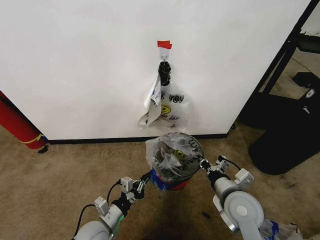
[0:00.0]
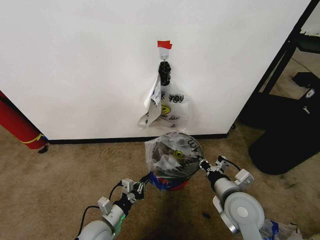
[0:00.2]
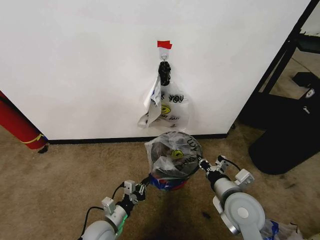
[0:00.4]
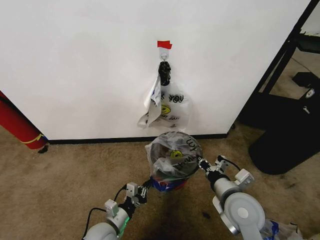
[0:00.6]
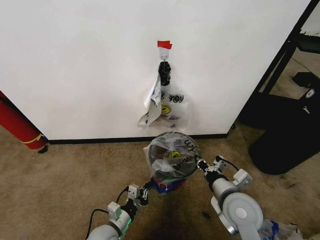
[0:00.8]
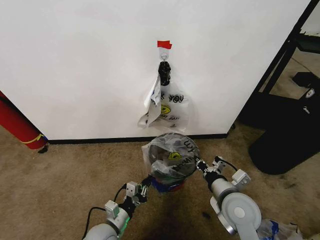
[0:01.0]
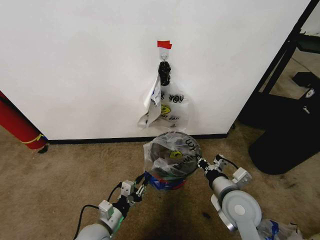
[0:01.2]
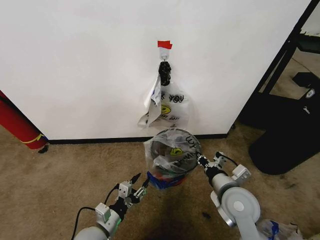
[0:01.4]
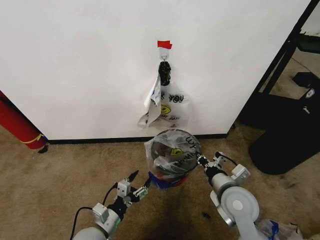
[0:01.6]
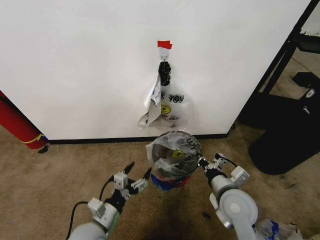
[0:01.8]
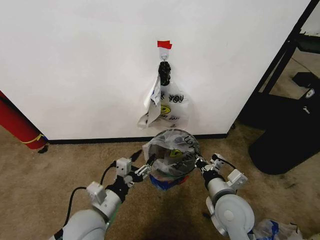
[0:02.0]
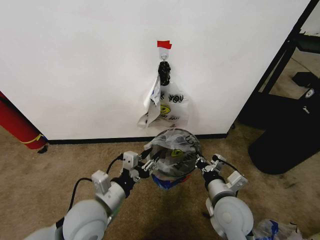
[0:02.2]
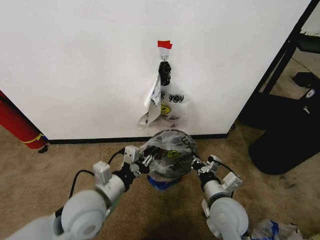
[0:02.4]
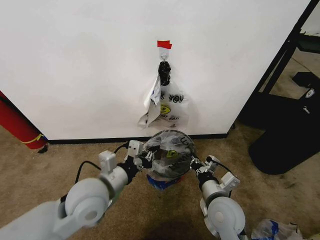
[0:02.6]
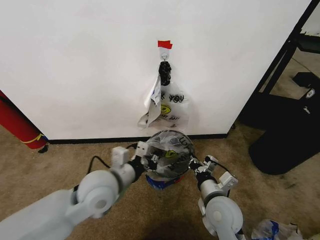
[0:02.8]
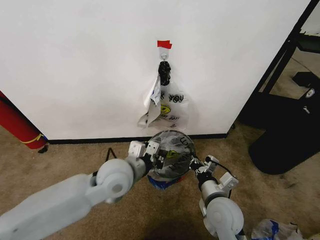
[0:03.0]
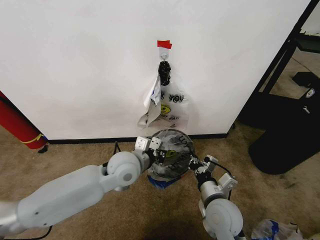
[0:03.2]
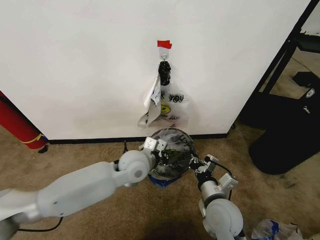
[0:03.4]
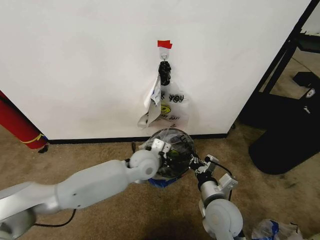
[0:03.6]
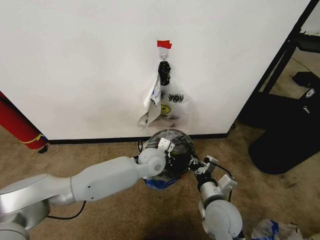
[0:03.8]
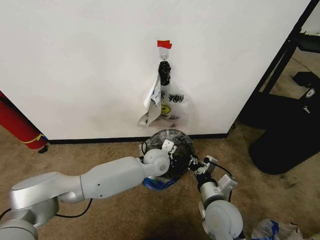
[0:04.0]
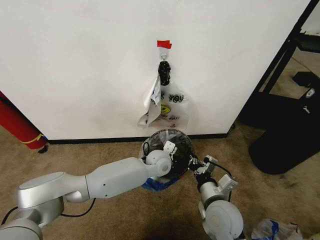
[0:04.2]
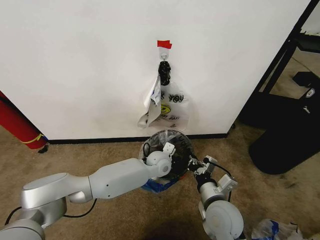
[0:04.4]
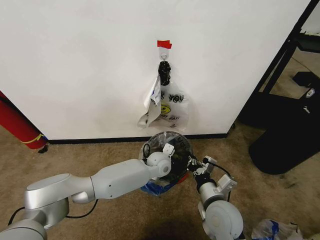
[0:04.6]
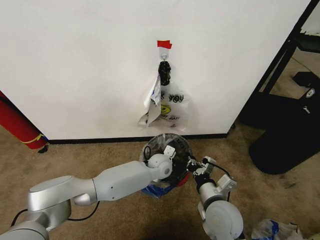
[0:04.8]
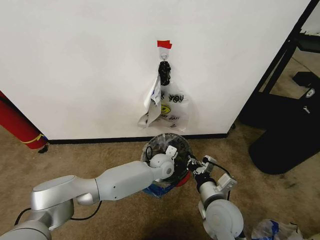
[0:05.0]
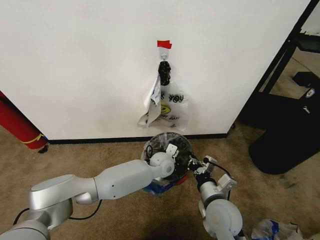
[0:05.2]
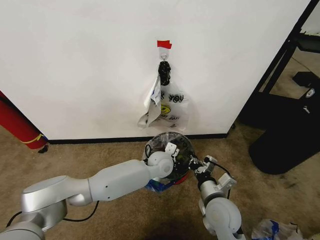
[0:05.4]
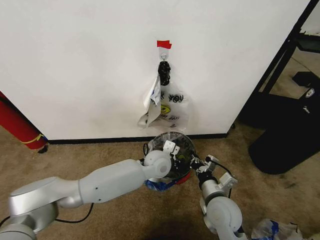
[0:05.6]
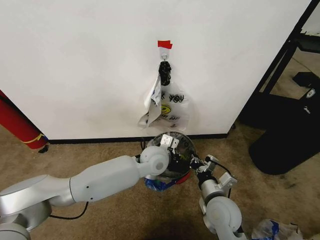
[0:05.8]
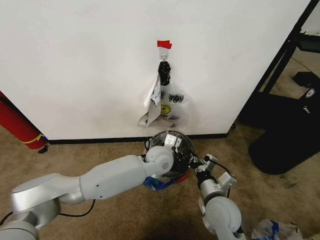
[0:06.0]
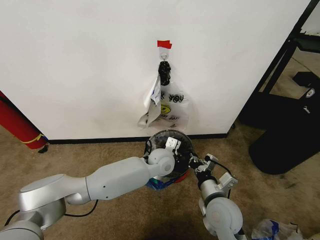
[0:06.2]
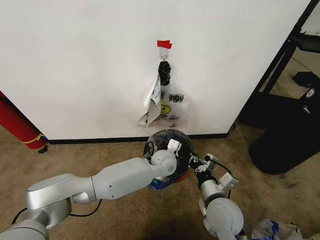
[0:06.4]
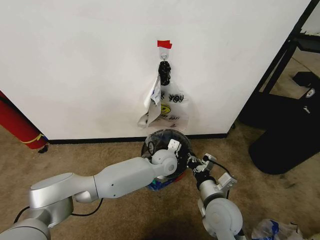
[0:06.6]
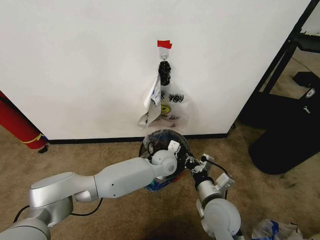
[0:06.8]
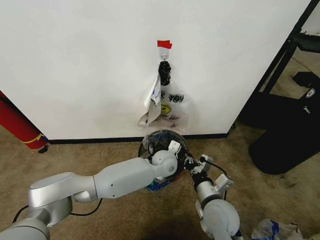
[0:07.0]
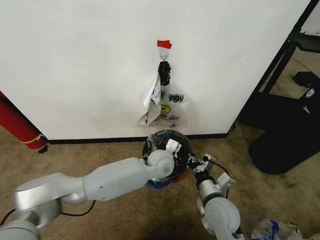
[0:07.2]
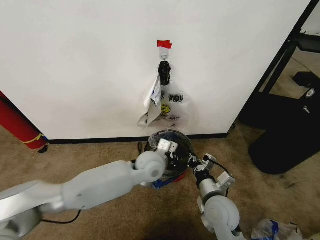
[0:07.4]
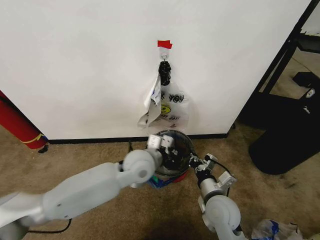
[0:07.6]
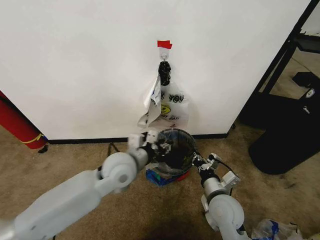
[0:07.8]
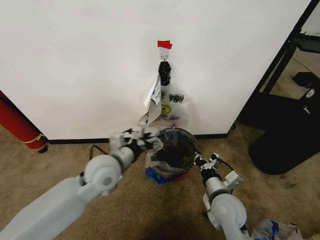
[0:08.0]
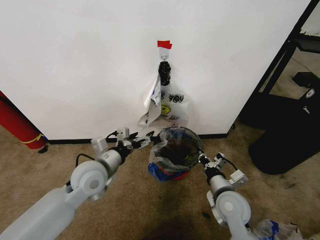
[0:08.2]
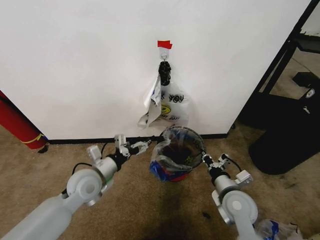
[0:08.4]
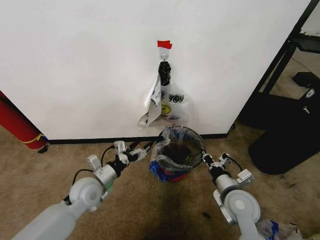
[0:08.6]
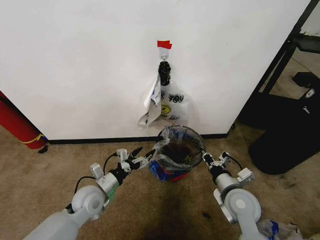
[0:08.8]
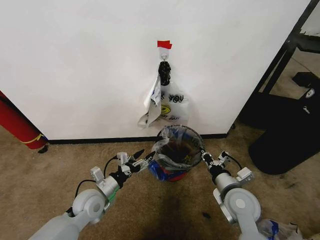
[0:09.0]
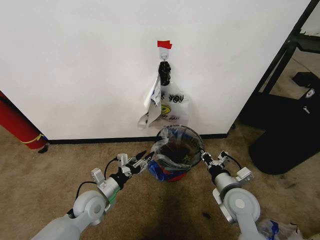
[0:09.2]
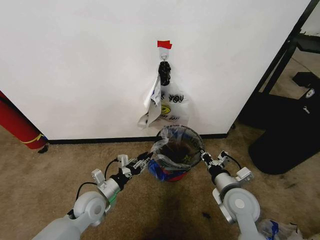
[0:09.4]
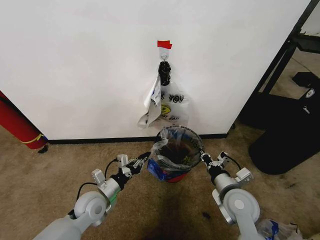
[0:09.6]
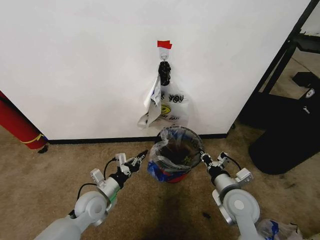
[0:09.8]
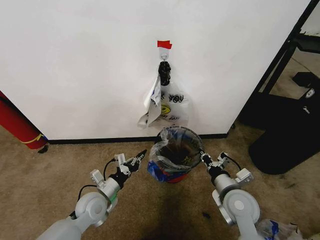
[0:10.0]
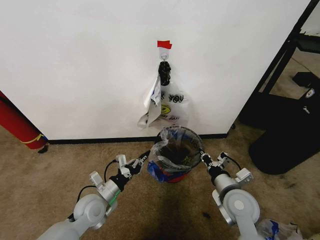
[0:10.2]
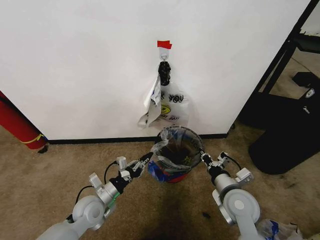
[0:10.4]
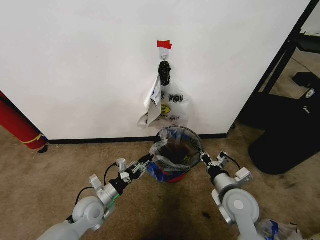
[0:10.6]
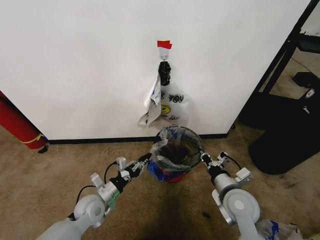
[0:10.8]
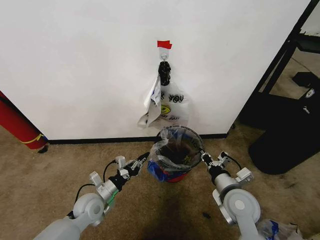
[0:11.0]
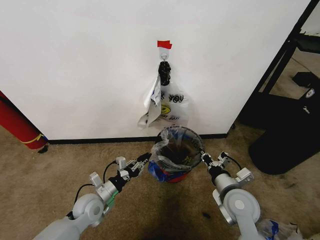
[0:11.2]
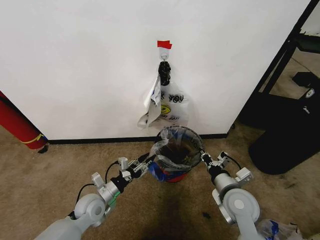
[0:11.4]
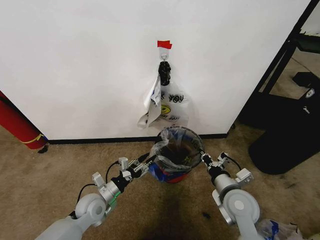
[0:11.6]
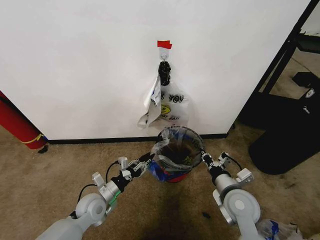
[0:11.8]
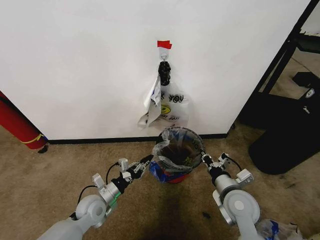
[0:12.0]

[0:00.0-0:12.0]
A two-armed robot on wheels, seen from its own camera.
Task of the whole recording: Pick up the garbage bag from the wall and place it over the trash bin.
0:00.0 to 0:01.6: The left gripper opens up.
0:01.6 to 0:03.0: The left gripper travels upward, forward and to the right by some 25 cm, and closes; the right gripper shifts by about 5 cm.
0:03.0 to 0:04.4: The left gripper travels downward, forward and to the right by some 20 cm.
0:04.4 to 0:06.0: The left gripper goes approximately 5 cm upward.
0:06.0 to 0:07.6: The left gripper shifts approximately 10 cm to the left and backward.
0:07.6 to 0:09.0: The left gripper goes about 20 cm to the left and downward, and opens up, while the right gripper shifts about 5 cm to the right.
0:09.0 to 0:10.4: The left gripper closes up.
0:10.4 to 0:12.0: The left gripper opens and closes again.

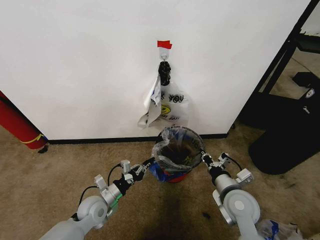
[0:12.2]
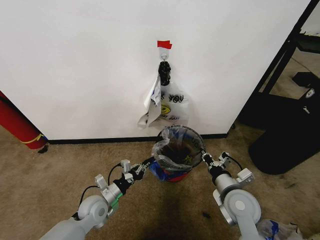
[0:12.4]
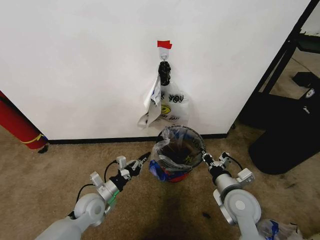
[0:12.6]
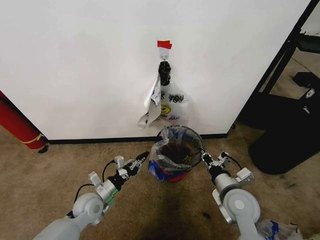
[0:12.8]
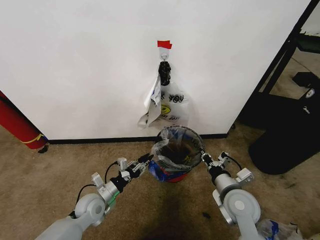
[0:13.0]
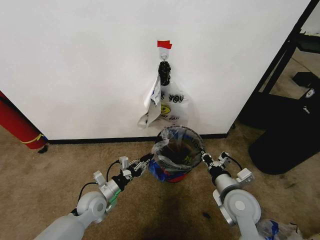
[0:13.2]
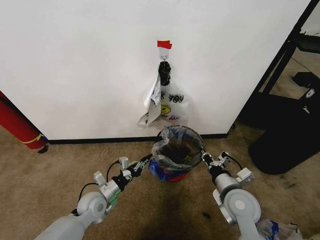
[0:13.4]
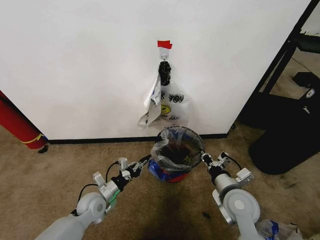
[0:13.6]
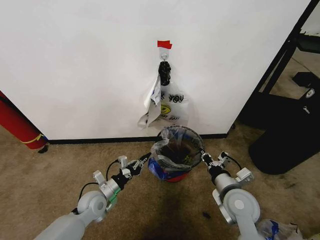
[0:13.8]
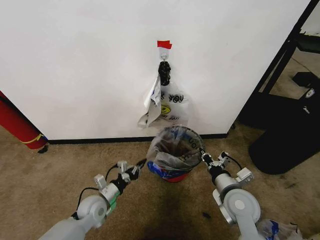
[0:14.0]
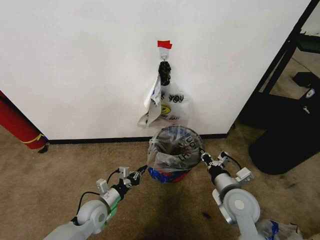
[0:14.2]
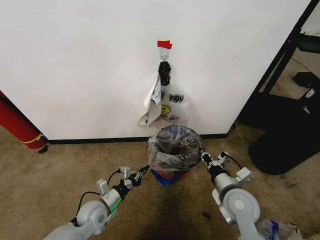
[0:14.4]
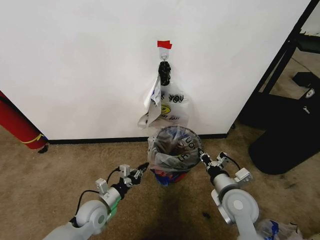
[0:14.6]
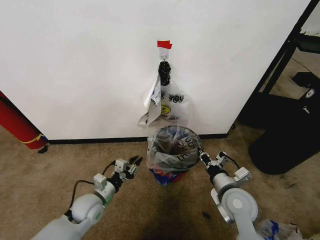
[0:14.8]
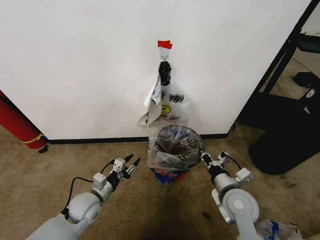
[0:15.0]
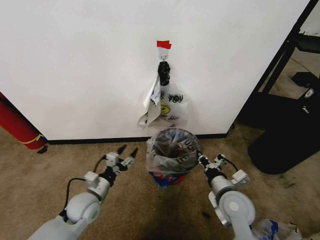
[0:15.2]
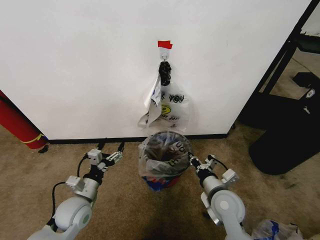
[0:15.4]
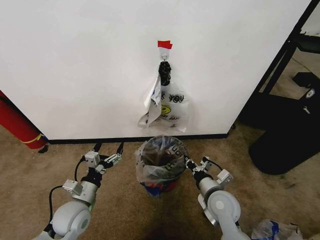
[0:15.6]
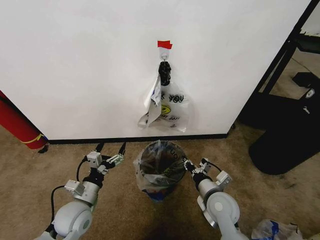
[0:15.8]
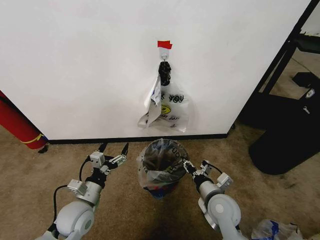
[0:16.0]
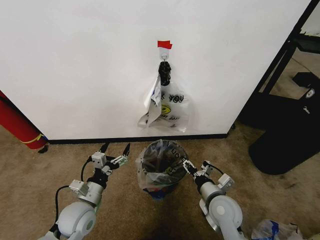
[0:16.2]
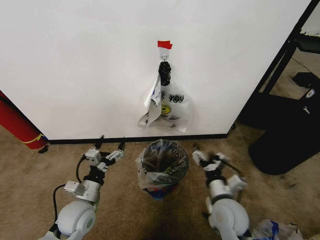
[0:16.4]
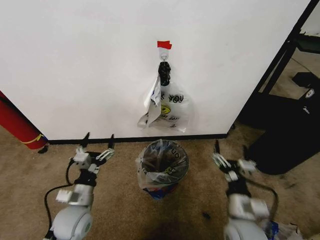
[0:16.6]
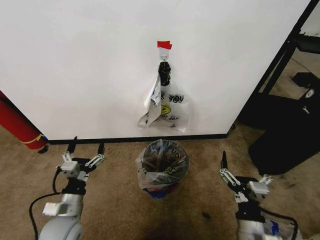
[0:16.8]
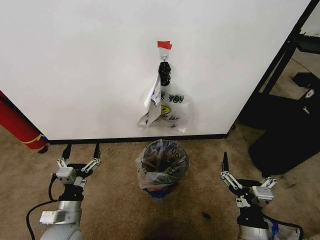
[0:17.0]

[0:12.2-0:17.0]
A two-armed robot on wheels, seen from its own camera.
Task of the whole recording: Pick up the garbage bag from the wall and place it over the trash bin.
0:12.2 to 0:13.8: The left gripper opens, then closes again.
0:13.8 to 0:15.4: The left gripper shifts approximately 5 cm upward, and opens its fingers.
0:15.4 to 0:17.0: The right gripper goes approximately 15 cm backward, and opens its fingers. Meanwhile the left gripper travels backward by approximately 10 cm.

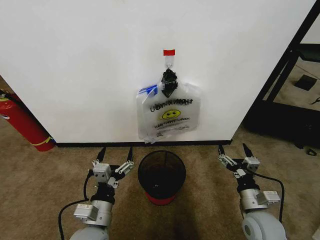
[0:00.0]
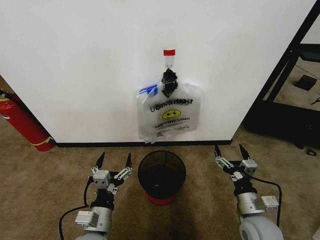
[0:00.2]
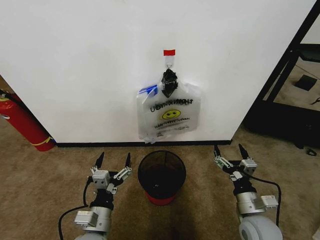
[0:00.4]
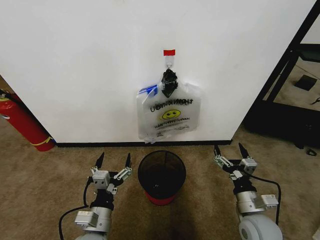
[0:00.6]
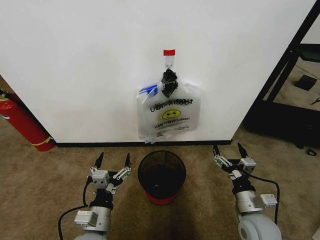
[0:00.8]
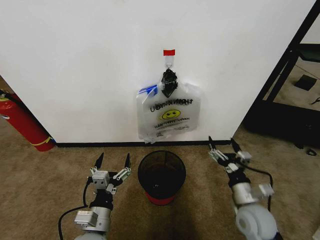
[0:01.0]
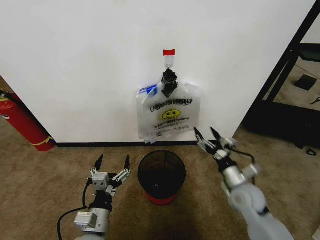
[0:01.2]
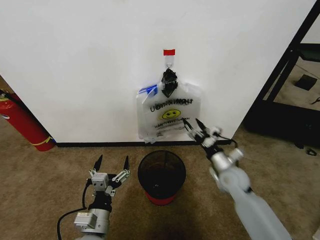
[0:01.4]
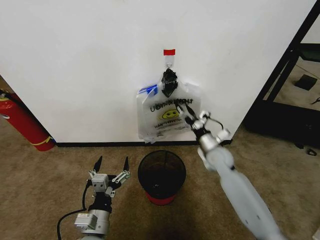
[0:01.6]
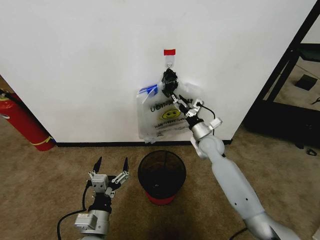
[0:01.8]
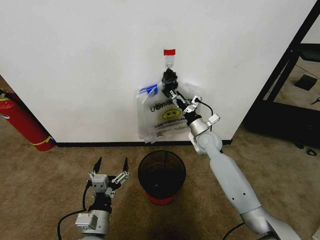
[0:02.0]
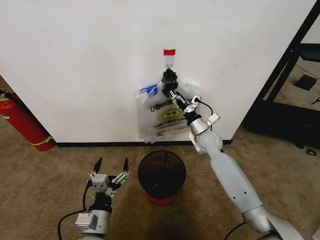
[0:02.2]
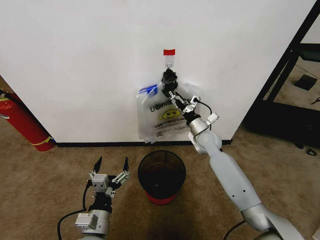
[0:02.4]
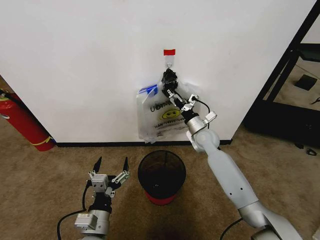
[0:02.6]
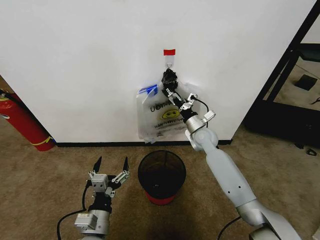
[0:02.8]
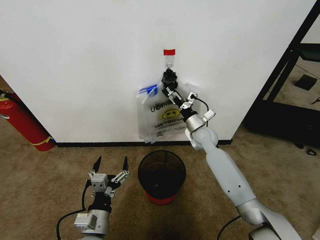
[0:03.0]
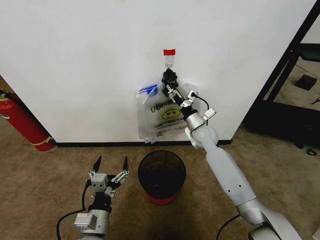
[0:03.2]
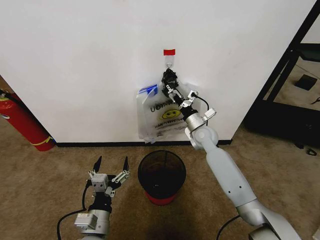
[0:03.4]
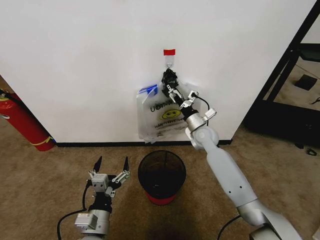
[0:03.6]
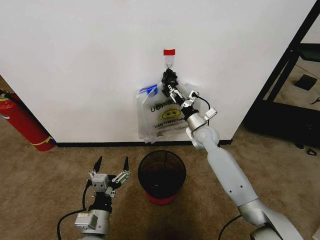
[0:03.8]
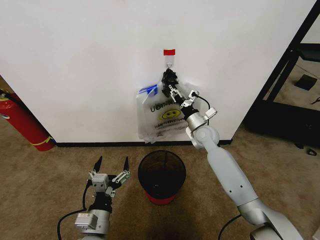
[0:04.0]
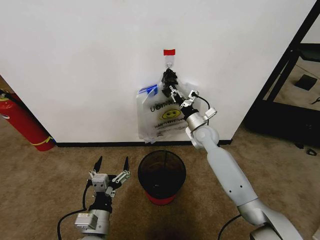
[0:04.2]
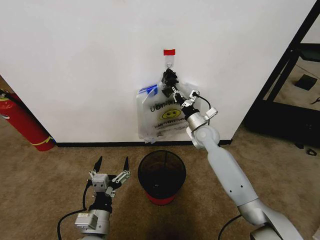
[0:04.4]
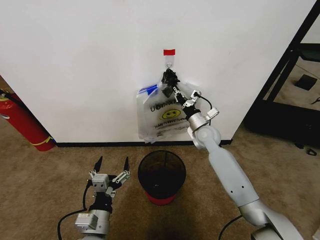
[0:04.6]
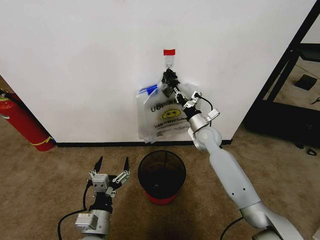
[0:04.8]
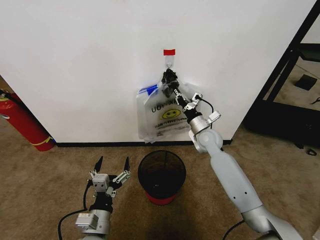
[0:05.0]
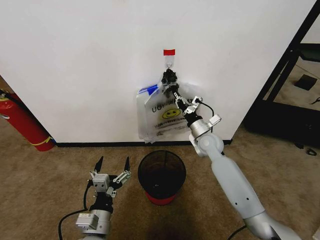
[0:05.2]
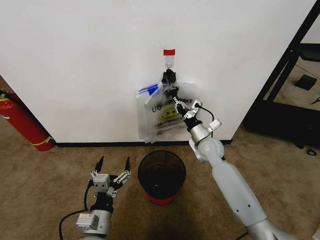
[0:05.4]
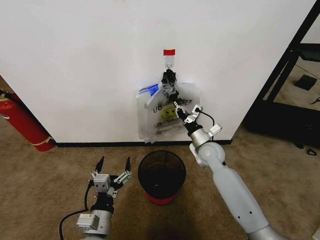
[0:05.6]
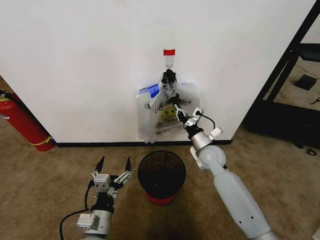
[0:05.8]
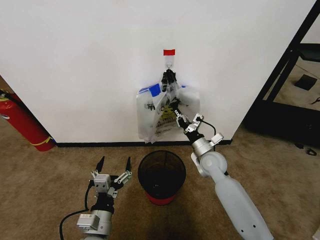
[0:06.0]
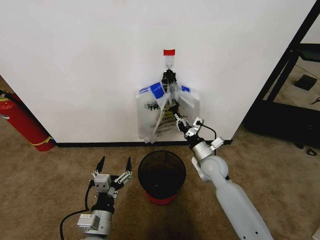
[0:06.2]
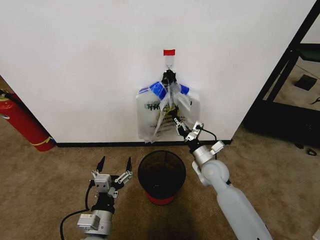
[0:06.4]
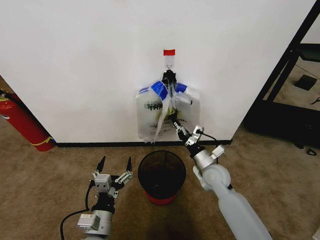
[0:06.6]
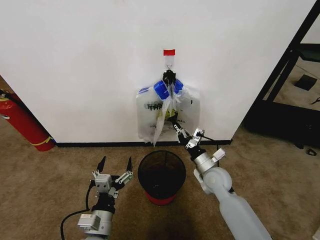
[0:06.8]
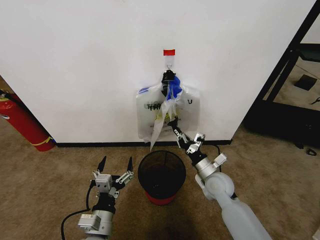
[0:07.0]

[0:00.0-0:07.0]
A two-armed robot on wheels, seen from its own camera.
Task of the whole recording: Pick up the garbage bag from the wall and place it over the trash bin.
0:01.4 to 0:02.8: The right gripper goes roughly 15 cm forward and to the left.
0:02.8 to 0:04.2: The right gripper closes up.
0:04.2 to 0:05.6: The right gripper is displaced backward by about 5 cm.
0:05.6 to 0:07.0: The right gripper shifts approximately 10 cm backward.
